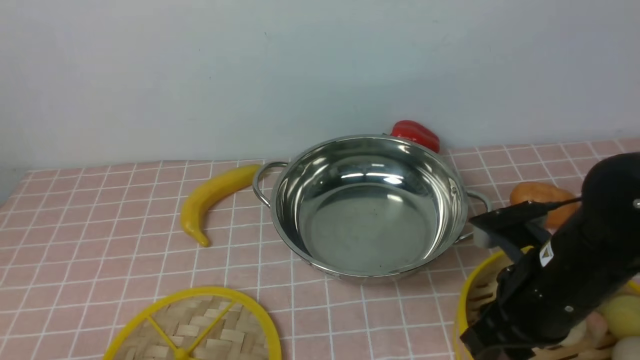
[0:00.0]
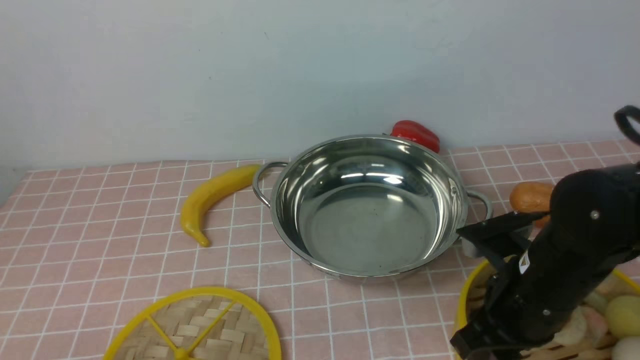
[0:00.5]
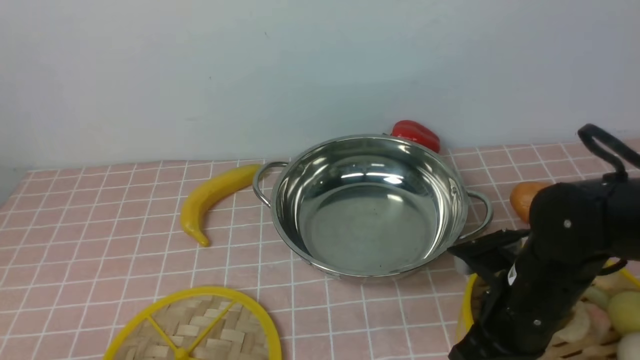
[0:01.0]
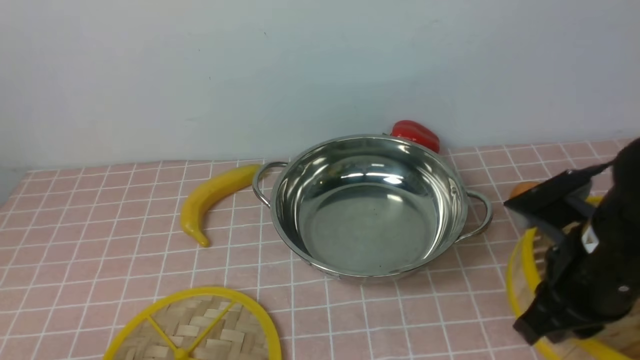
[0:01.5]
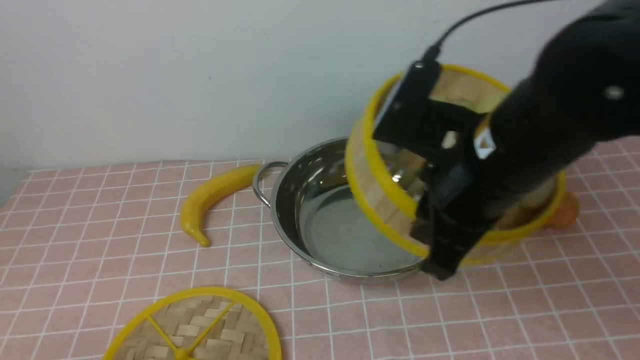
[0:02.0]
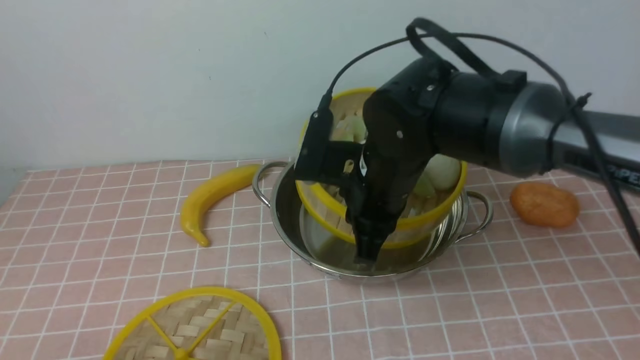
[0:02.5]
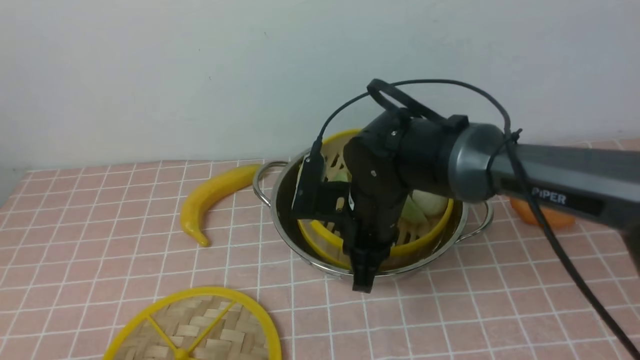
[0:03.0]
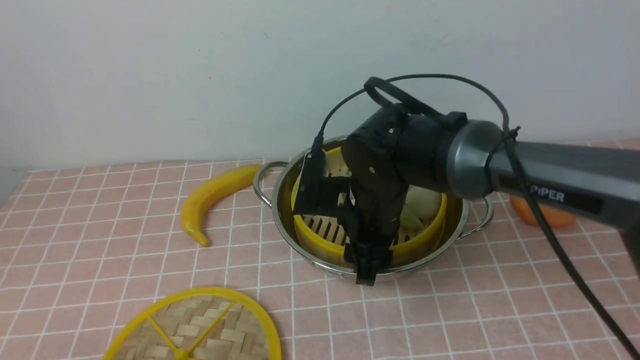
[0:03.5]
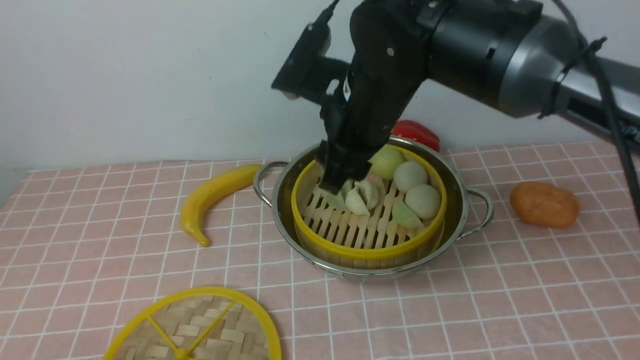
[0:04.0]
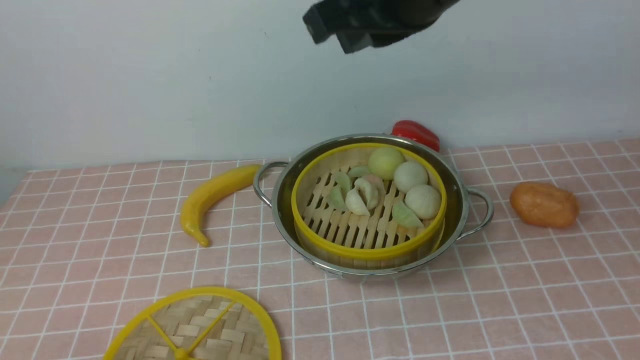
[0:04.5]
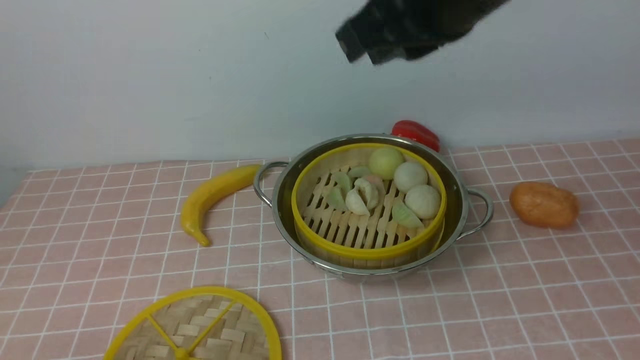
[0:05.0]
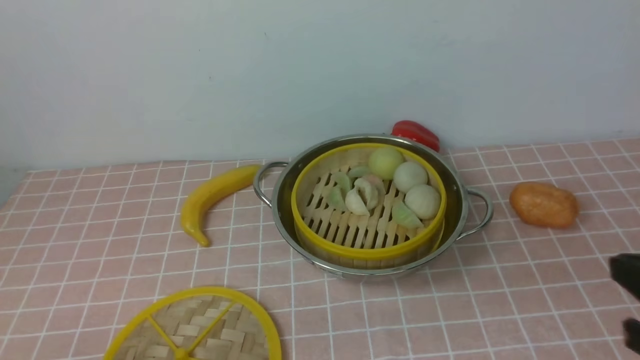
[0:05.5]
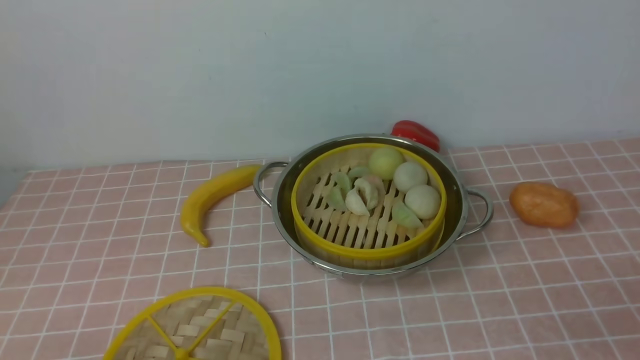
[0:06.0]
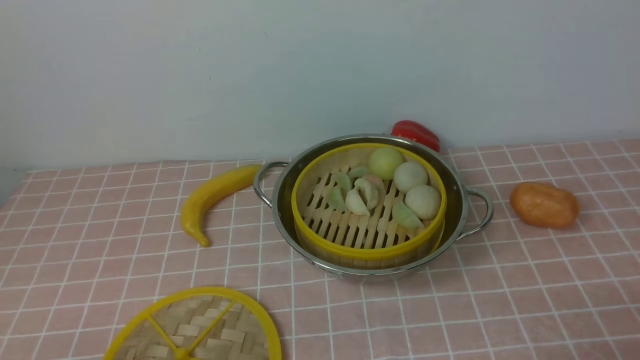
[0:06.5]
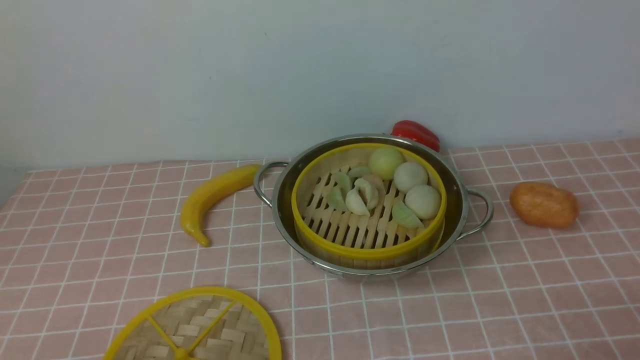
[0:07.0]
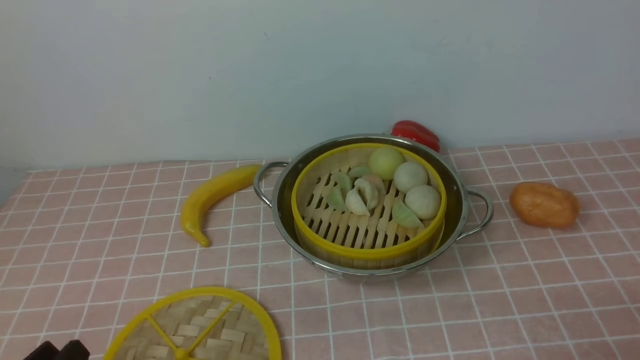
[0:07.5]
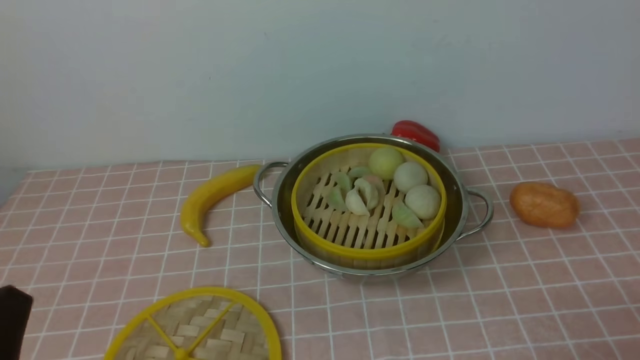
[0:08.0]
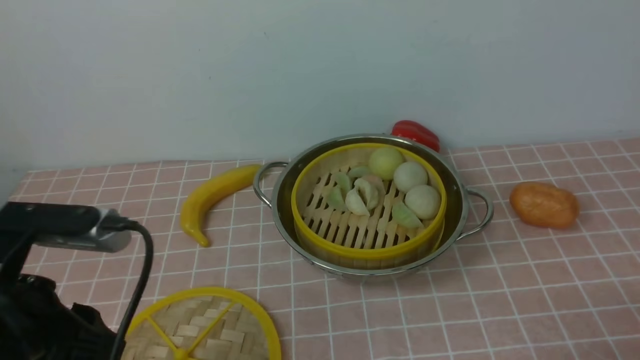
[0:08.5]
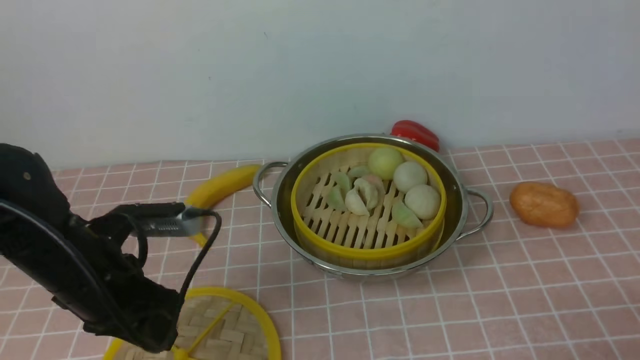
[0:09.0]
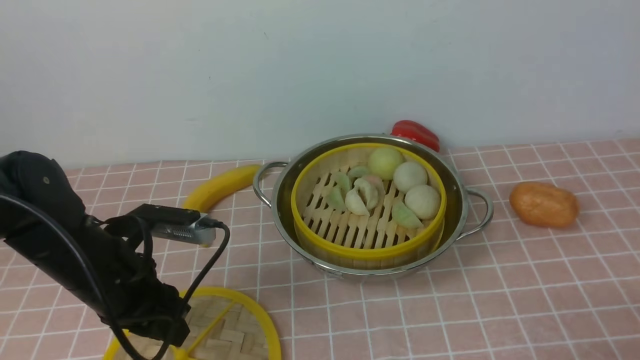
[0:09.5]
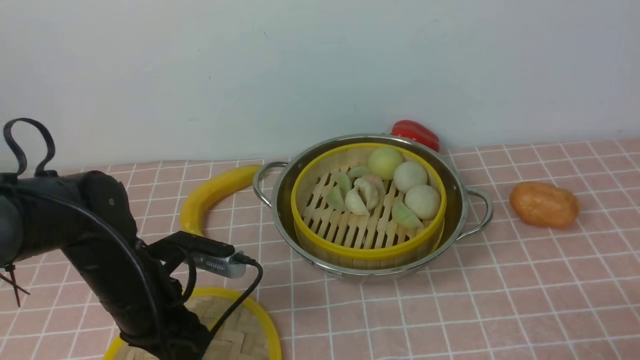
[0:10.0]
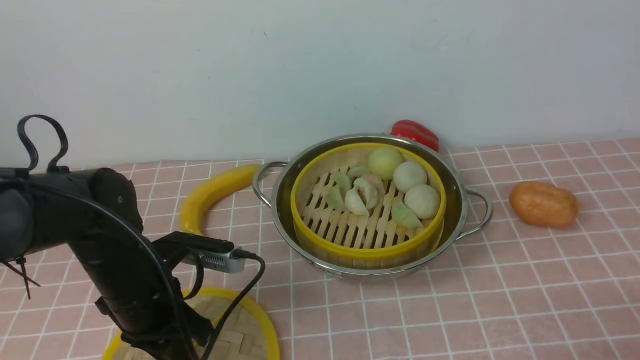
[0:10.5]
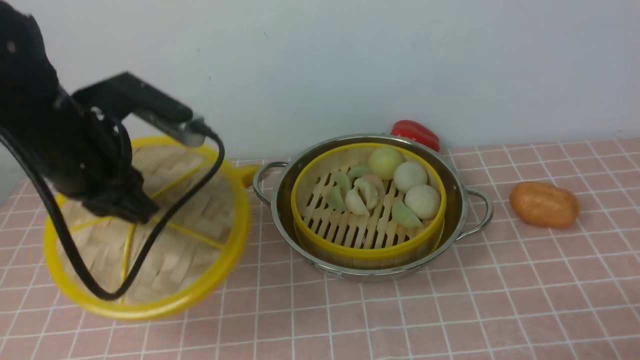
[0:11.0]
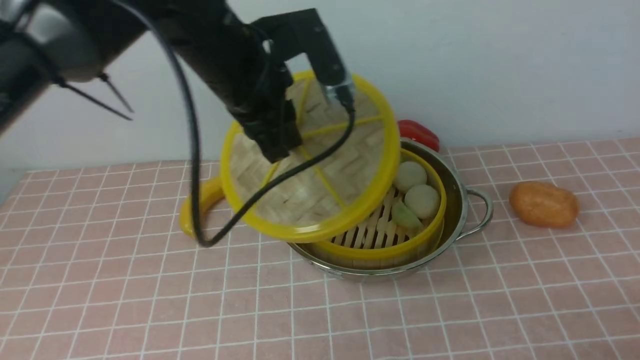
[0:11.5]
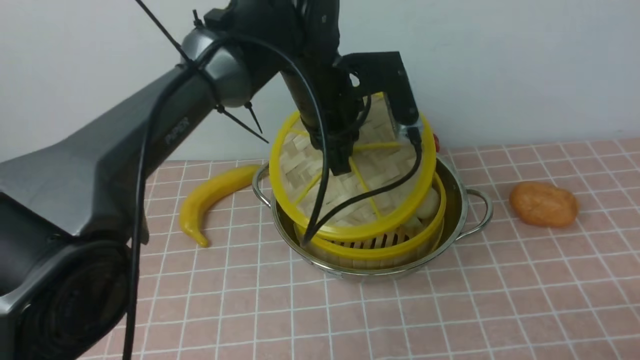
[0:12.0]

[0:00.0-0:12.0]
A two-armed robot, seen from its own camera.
Task of the whole recording: place the steamer in the pot on the pink tablecloth, and put the lid on the steamer.
Step, 0:01.5 to 0:03.5: use the right arm to put the steamer into the iron steamer pot in the middle.
Step, 0:04.0 to 0:10.5: use the left arm to lift the lid of the steamer.
0:00.0 to 0:02.0: The right gripper shifts approximately 10 cm upward and to the left, and closes its fingers.
0:02.0 to 0:04.0: The right gripper moves forward and to the left, about 10 cm, moves about 15 cm downward and comes back, and opens its fingers.
0:04.0 to 0:06.0: The right gripper shifts approximately 40 cm to the right, backward and downward, and closes up.
0:06.0 to 0:08.0: The left gripper goes some 10 cm upward.
0:08.0 to 0:10.0: The left gripper heads forward and downward, covering approximately 20 cm.
0:10.0 to 0:12.0: The left gripper travels to the right, forward and upward by some 25 cm.

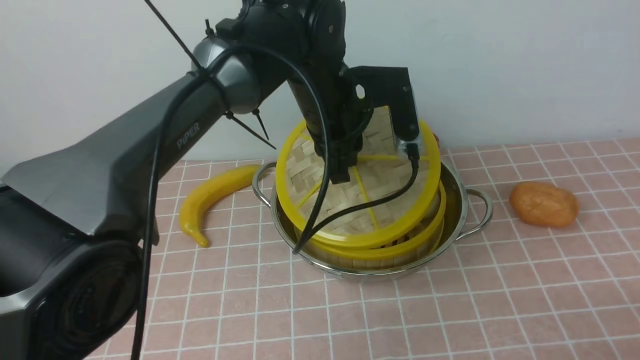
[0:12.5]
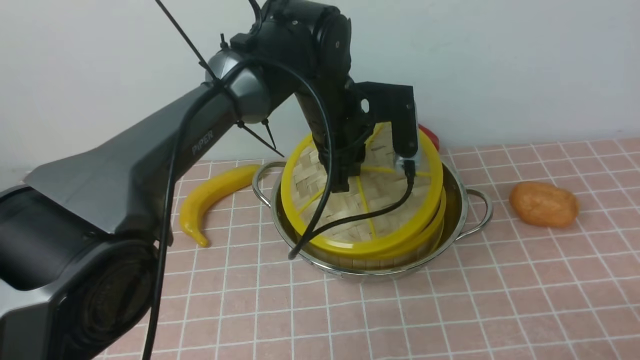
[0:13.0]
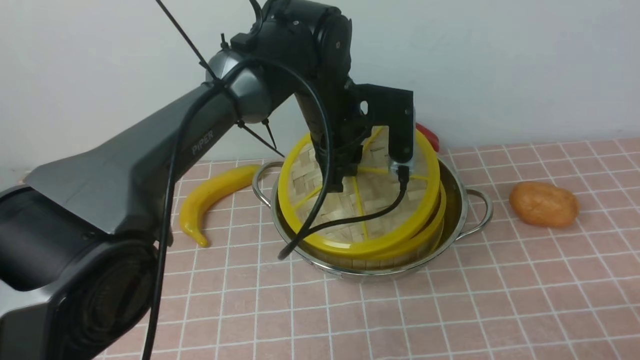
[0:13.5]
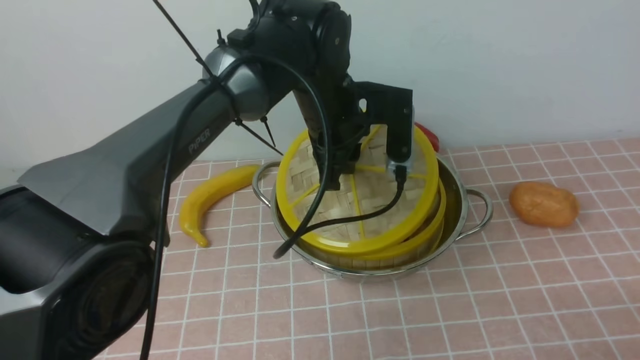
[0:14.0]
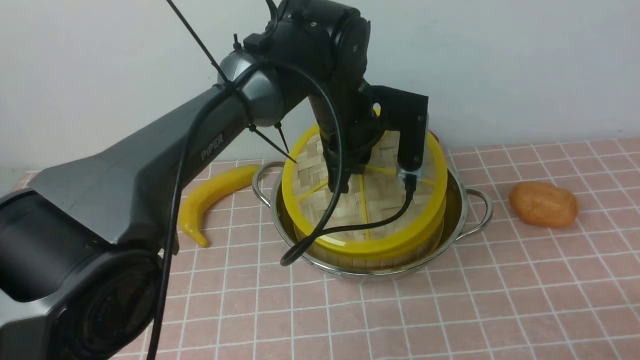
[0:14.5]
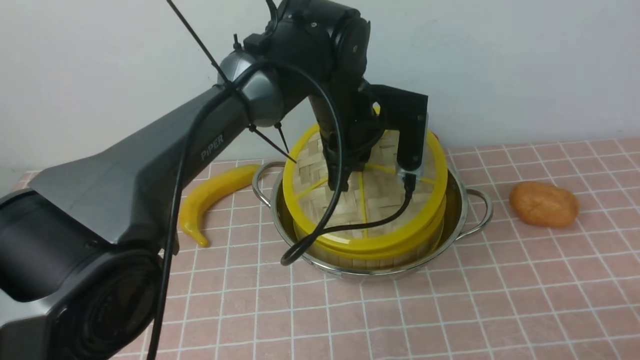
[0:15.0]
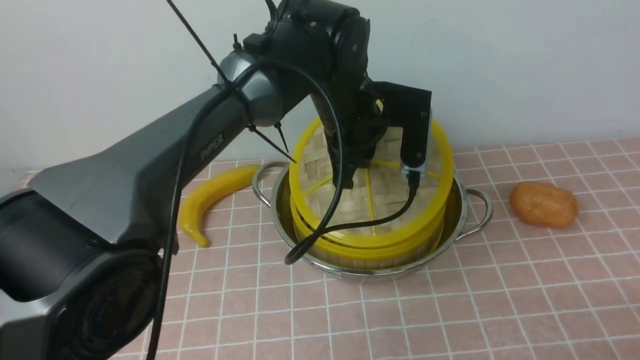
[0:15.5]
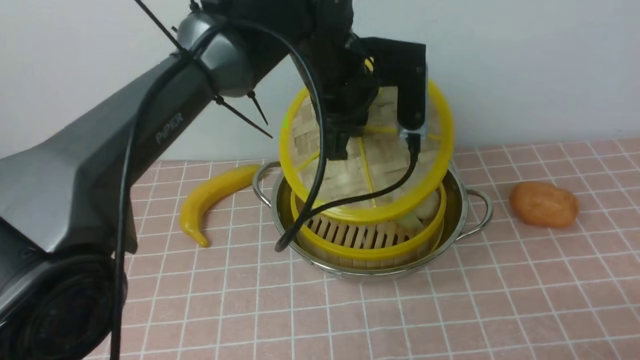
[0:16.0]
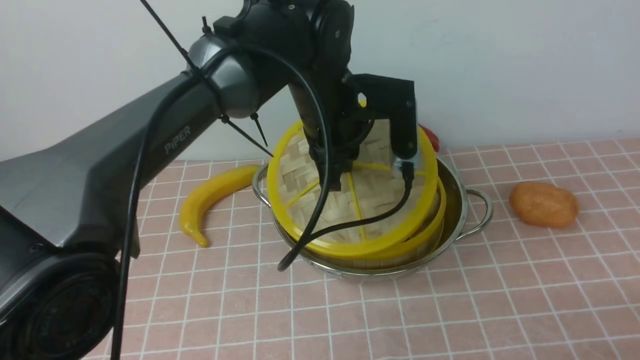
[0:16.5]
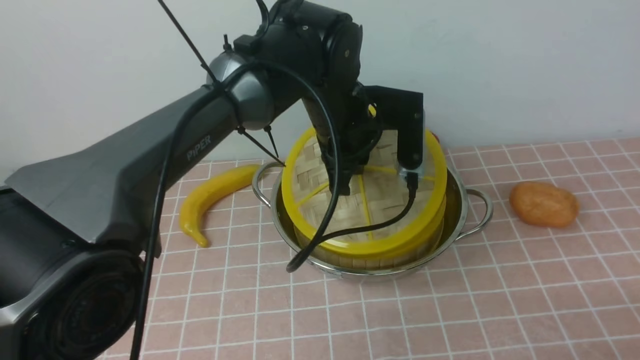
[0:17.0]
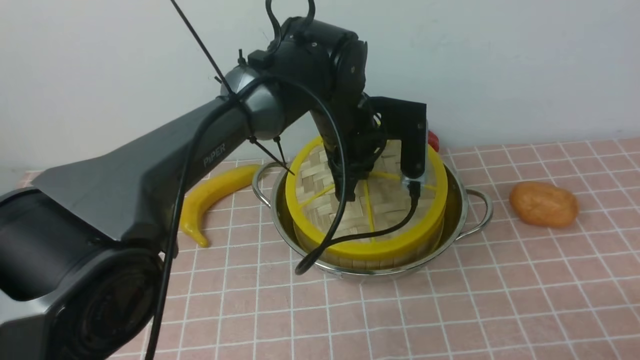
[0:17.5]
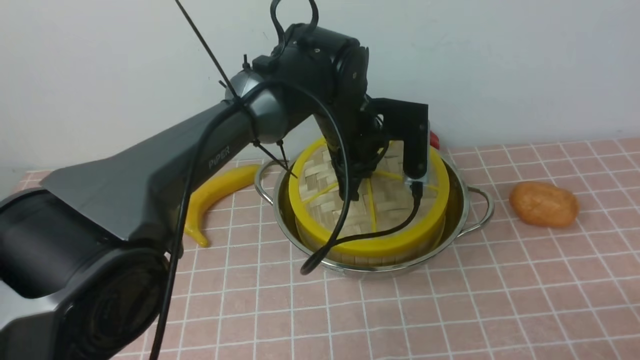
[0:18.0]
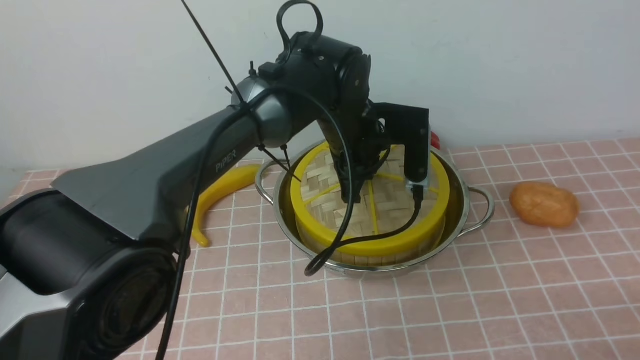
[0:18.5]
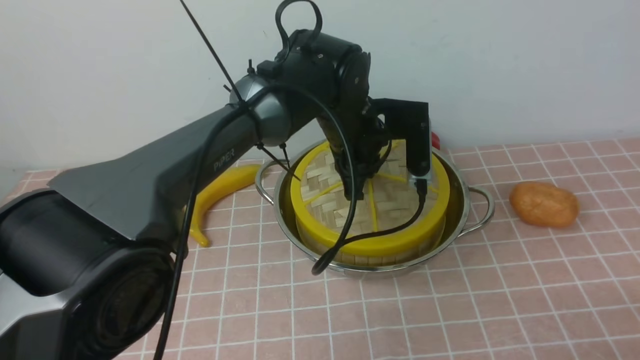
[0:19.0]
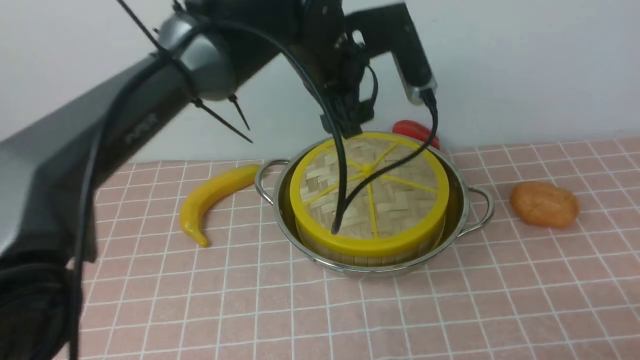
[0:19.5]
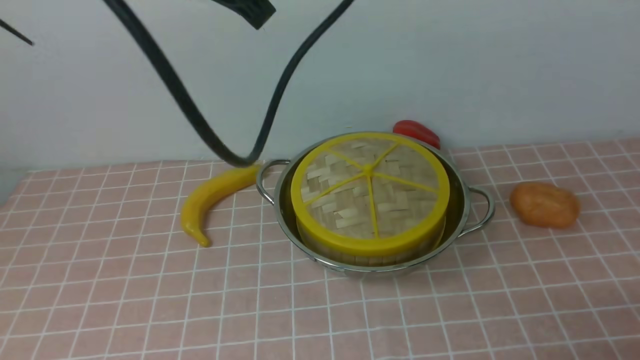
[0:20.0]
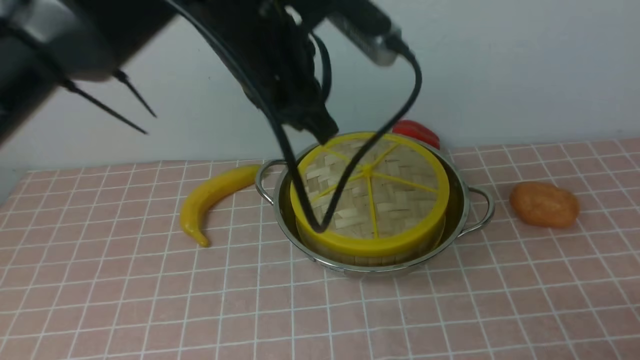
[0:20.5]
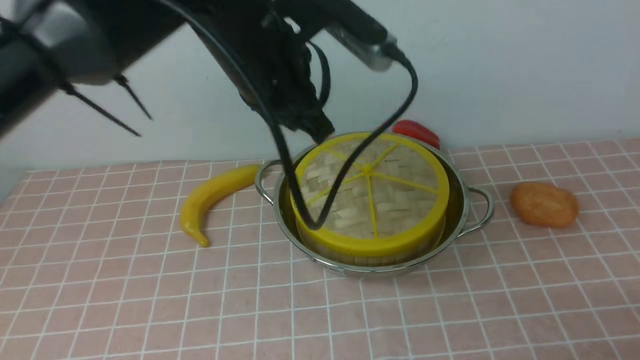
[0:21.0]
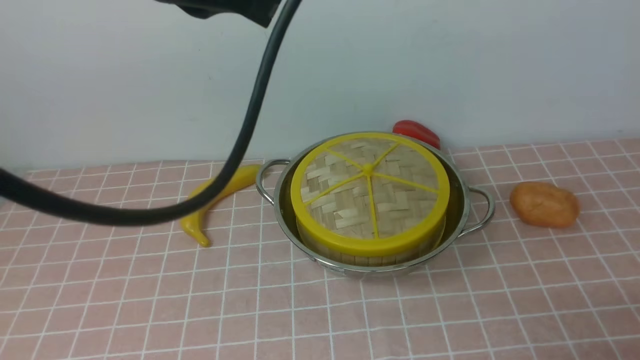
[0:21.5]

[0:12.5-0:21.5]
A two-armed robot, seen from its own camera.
Task of the whole recording: place the steamer in the pot on the pink tablecloth, and put the lid on the steamer.
Step, 0:12.5 to 0:19.0: use the left arm to place the steamer lid on the steamer.
0:12.5 to 0:17.0: The grippers make only small movements.
0:17.0 to 0:19.5: The left gripper goes approximately 10 cm upward, and opens its fingers.
0:19.5 to 0:21.5: The left gripper shifts about 20 cm backward, upward and to the left, and closes its fingers.
